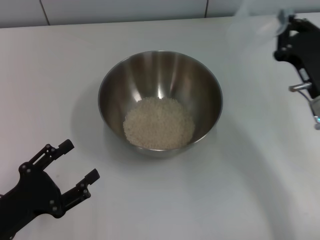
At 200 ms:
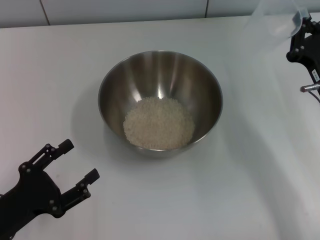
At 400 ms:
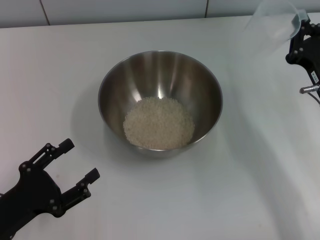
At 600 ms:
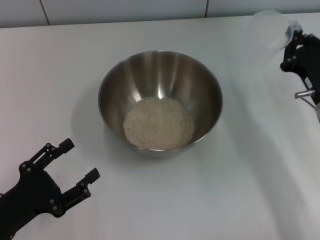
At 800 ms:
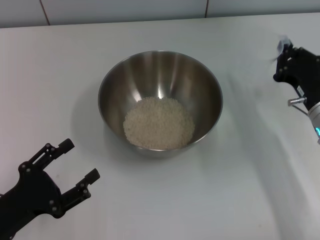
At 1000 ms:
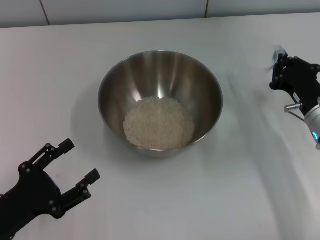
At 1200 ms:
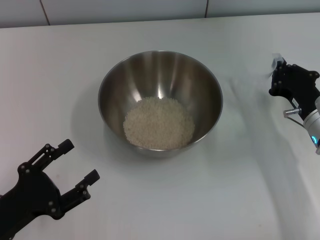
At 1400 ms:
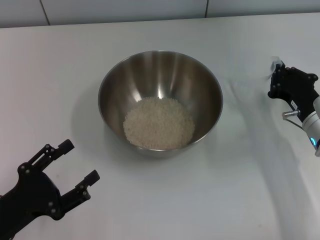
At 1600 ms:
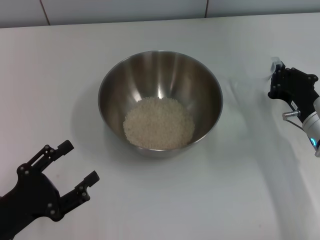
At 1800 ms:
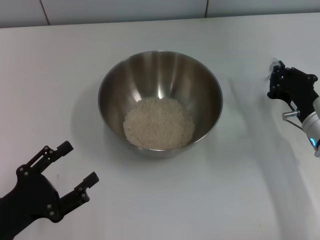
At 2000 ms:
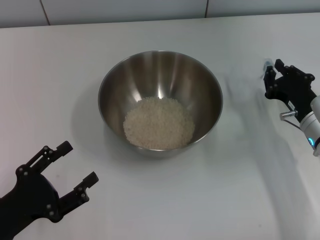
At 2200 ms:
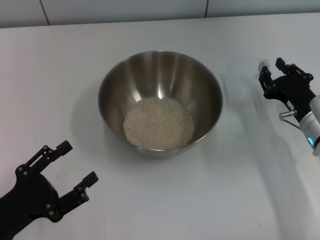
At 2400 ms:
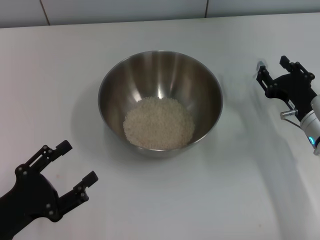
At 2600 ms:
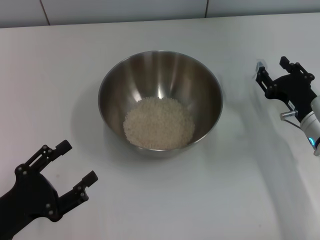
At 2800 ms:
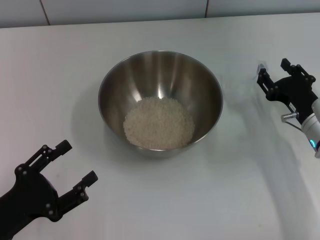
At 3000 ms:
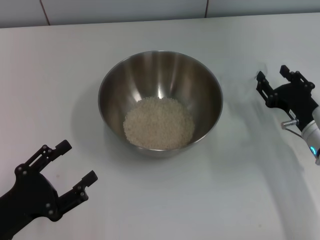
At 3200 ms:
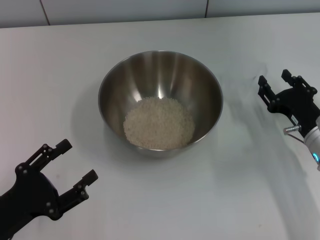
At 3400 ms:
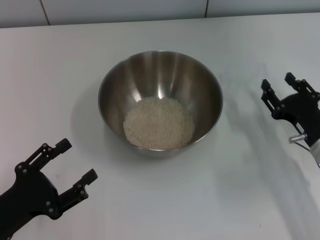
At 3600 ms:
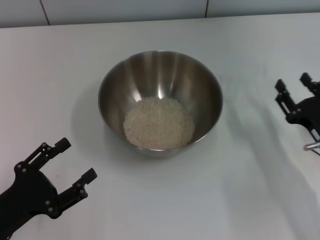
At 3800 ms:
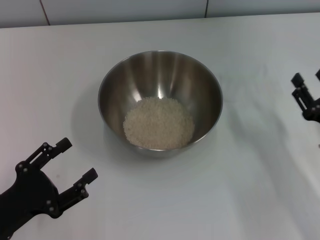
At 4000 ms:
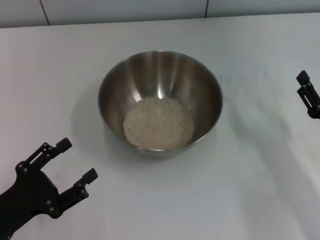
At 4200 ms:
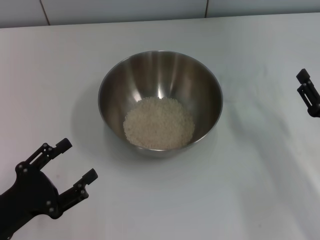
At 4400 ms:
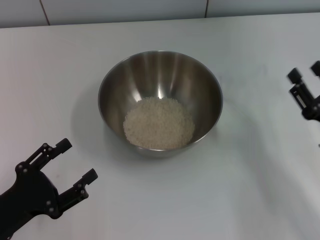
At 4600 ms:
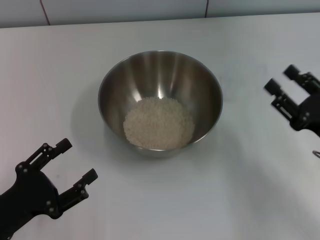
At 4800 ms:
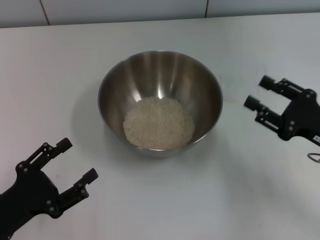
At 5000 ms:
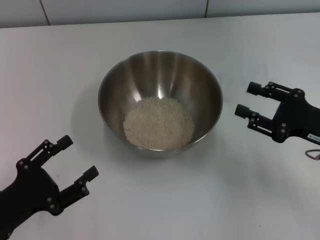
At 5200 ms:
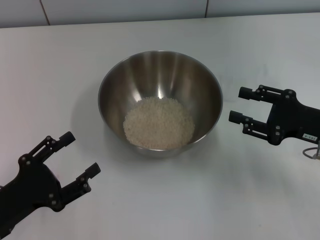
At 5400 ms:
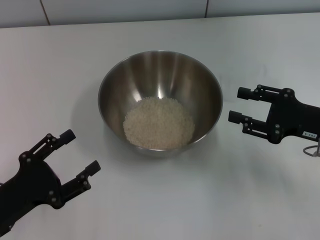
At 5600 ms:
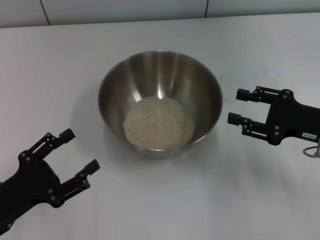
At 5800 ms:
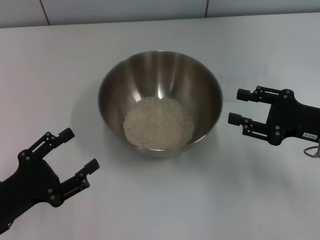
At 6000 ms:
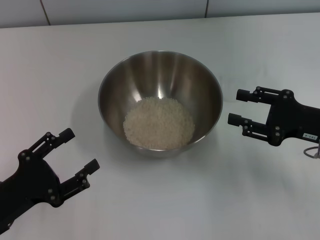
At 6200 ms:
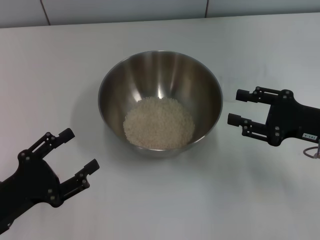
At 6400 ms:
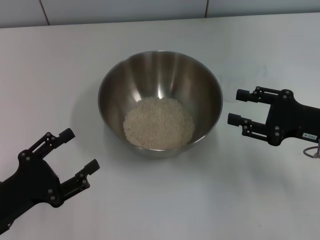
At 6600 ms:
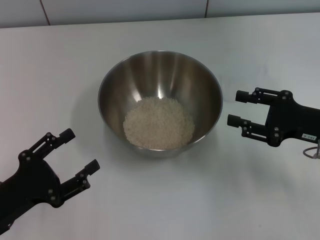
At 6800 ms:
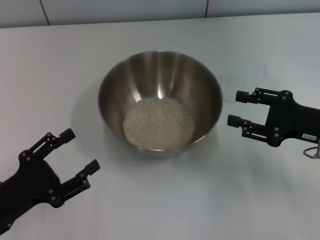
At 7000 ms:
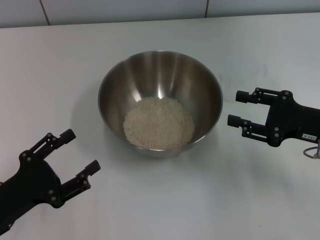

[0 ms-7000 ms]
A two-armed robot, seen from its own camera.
Task of the whole recording: Place the bowl in the middle of the table with one hand and pour the rice from the grain cup into it with the other hand.
Step, 200 ms to 3600 ms: Place the cup on the table with the right gripper.
1400 ms to 2800 ms: The right gripper opens its fingers.
2800 ms to 4200 ms: The right gripper travels backward by roughly 5 cm.
4200 ms to 5600 ms: The right gripper heads upward, covering about 5 cm.
5600 ms to 7000 ms: The two grippers keep their place.

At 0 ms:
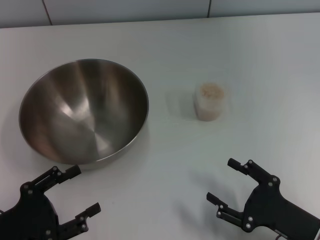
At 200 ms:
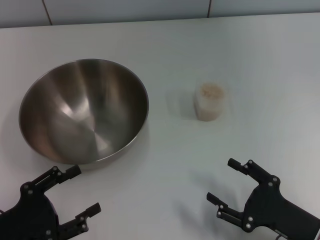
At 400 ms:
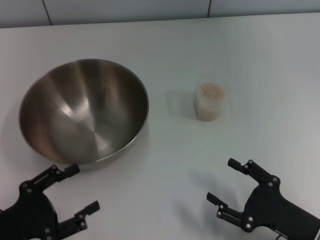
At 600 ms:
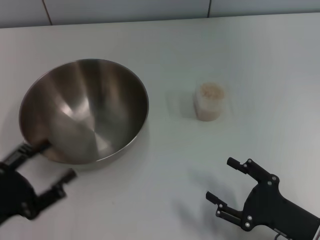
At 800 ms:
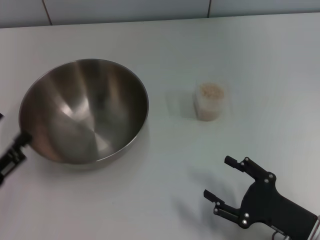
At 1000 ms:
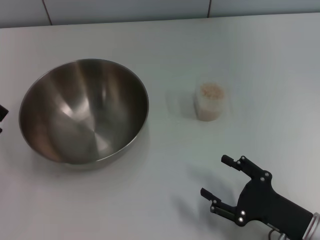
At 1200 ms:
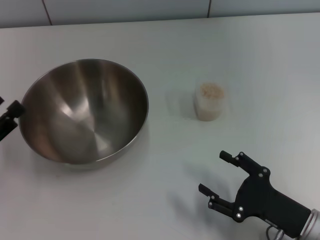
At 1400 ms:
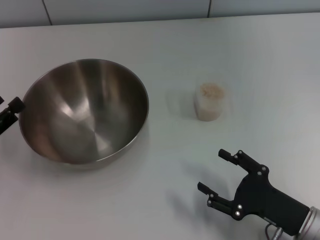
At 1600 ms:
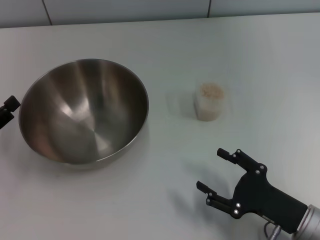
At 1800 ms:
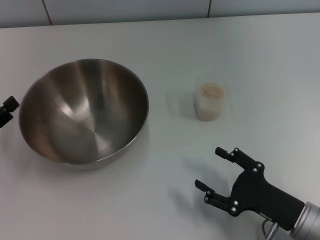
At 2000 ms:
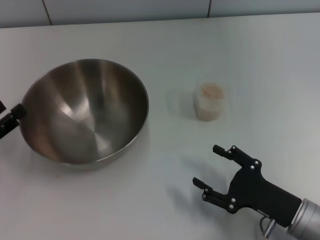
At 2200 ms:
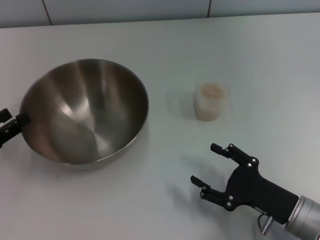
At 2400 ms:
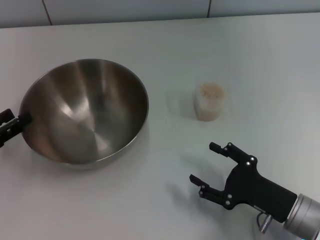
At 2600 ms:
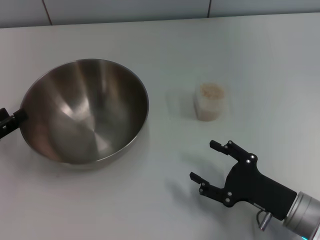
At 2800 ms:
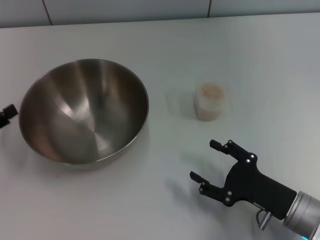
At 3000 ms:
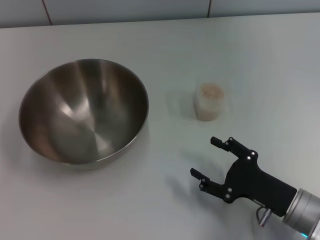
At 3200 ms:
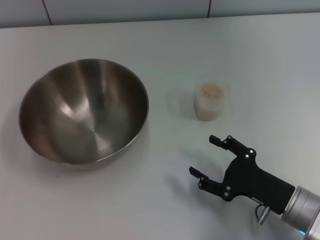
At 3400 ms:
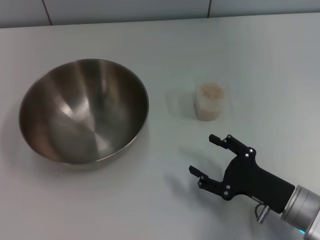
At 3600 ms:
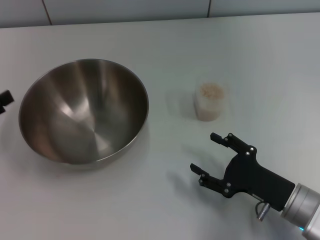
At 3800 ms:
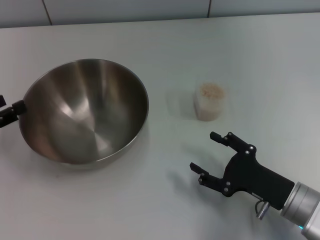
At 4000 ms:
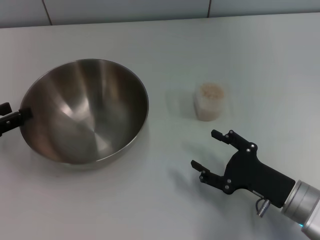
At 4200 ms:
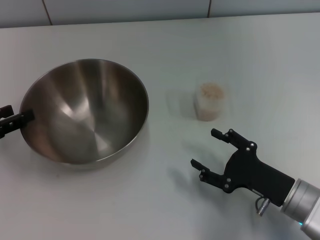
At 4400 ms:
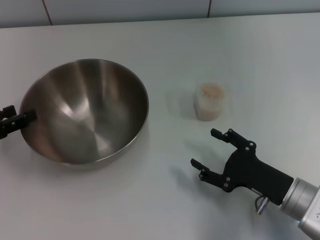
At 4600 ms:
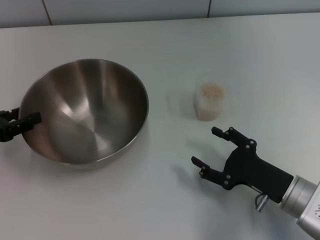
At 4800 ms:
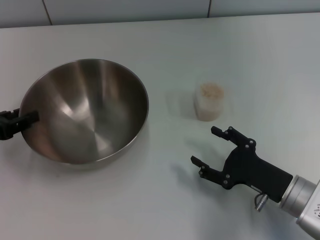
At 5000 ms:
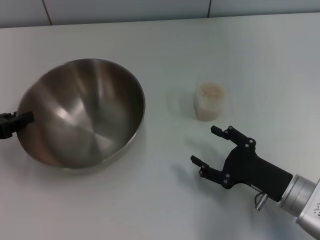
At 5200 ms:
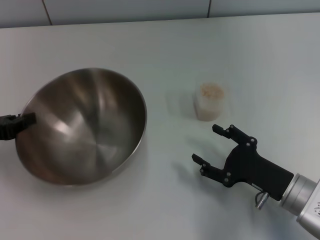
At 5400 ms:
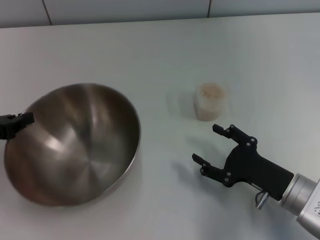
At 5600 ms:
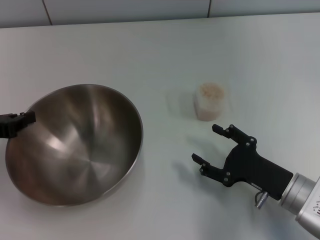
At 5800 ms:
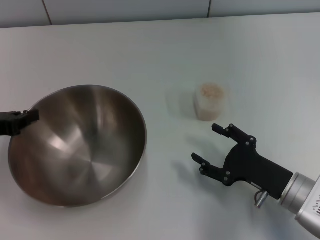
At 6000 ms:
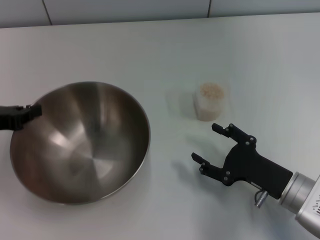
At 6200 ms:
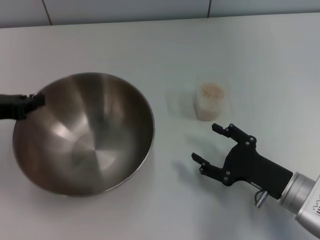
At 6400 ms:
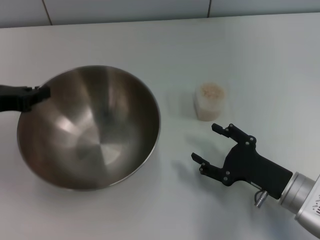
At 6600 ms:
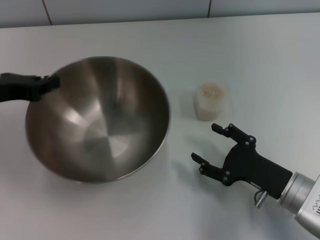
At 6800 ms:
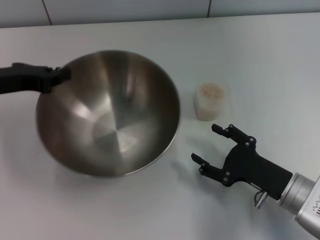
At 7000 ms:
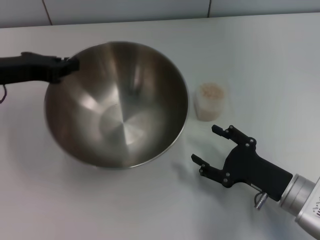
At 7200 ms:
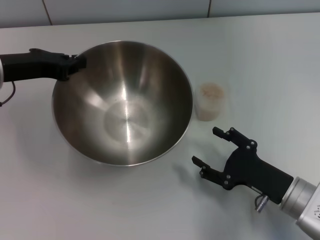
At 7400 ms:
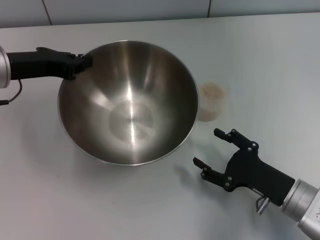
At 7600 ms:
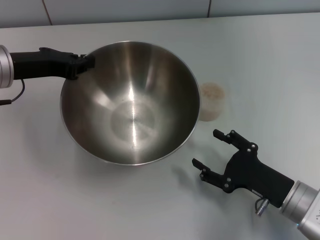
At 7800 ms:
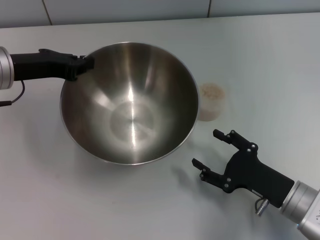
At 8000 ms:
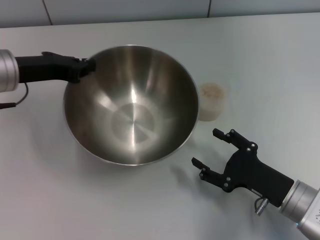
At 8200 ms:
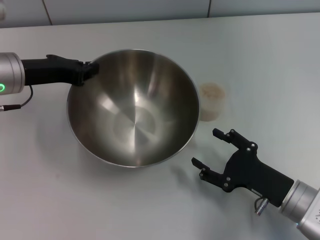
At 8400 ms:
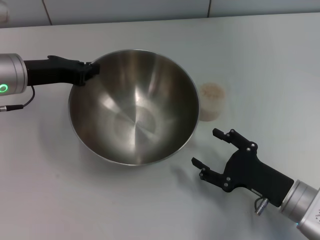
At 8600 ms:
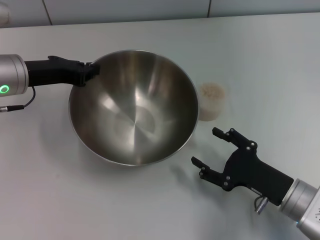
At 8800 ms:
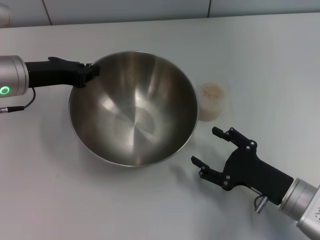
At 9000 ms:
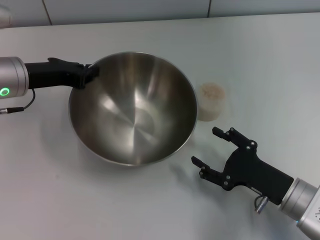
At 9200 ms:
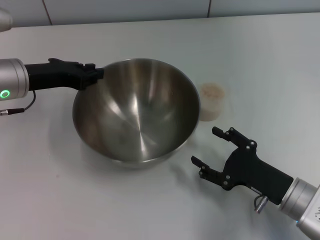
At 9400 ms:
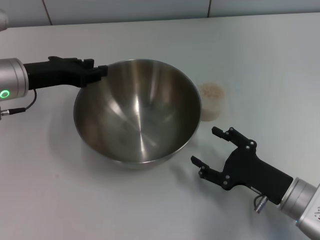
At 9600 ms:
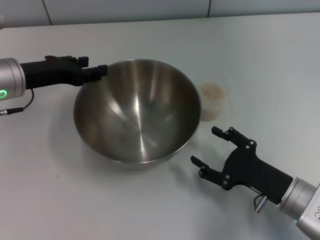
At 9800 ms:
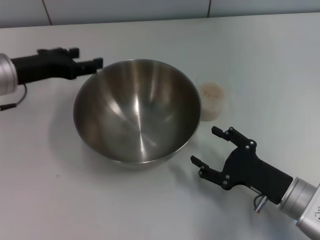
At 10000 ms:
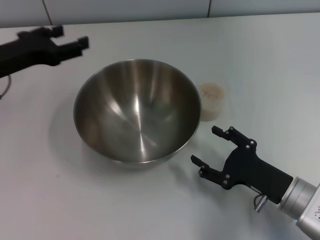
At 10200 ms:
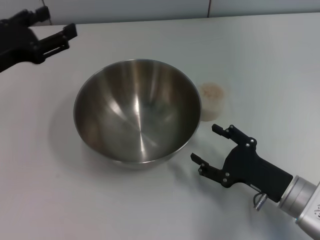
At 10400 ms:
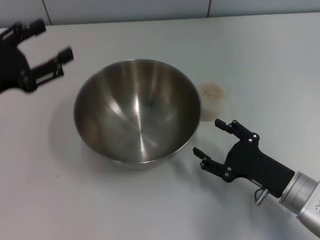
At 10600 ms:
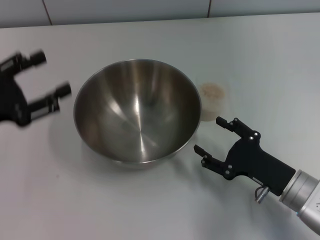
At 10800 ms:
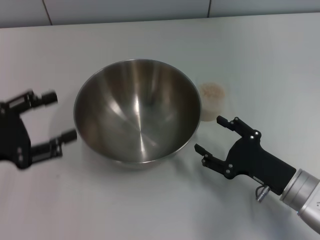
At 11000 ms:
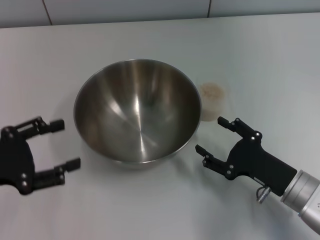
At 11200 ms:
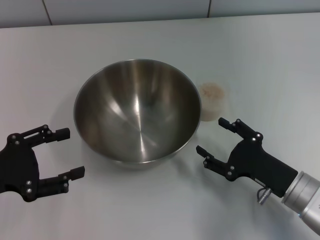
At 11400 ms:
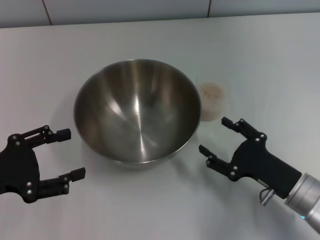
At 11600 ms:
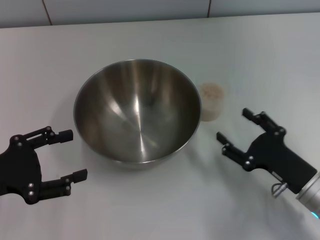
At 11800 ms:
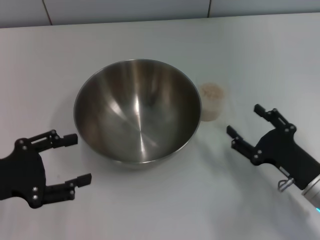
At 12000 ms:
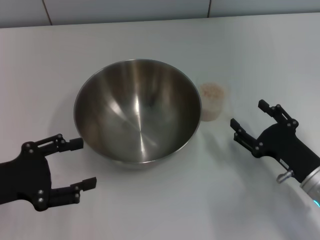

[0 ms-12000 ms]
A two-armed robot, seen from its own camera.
Task of the whole recording: Place the bowl in the middle of the table with one hand and pour the rice from the grain cup into it with the other hand.
Step, 0 ms to 6400 ms: Pick up the bowl with the left gripper.
Step, 6600 ms to 9600 ms: Place the bowl in the center of view with the left gripper.
0 ms to 1600 ms: The left gripper shifts about 10 cm forward and to the left.
1600 ms to 3000 ms: The grippers move only a little.
4400 ms to 6000 ms: The left gripper closes.
6000 ms to 7600 ms: The left gripper heads to the right and forward, covering approximately 10 cm.
7600 ms to 9000 ms: The grippers make only small movements.
9000 ms to 10400 ms: The left gripper heads backward and to the left, covering some 10 cm, and opens.
10400 ms to 12000 ms: The left gripper shifts roughly 5 cm backward.

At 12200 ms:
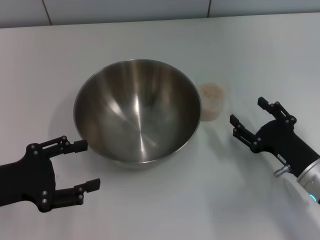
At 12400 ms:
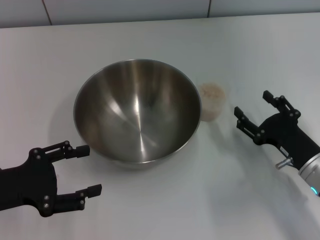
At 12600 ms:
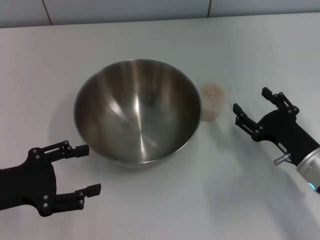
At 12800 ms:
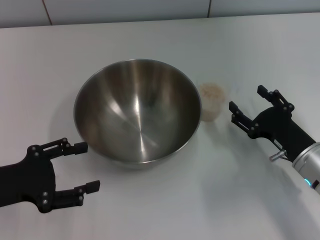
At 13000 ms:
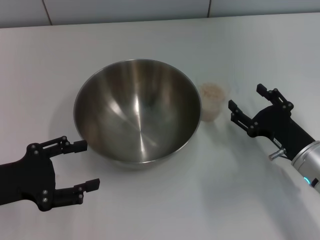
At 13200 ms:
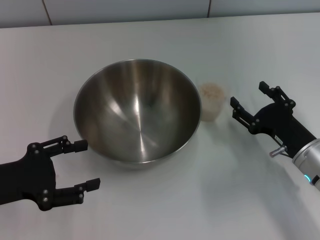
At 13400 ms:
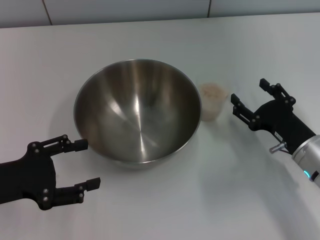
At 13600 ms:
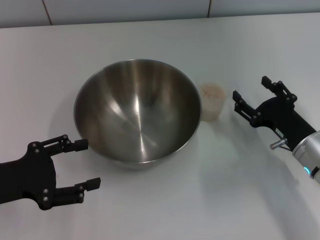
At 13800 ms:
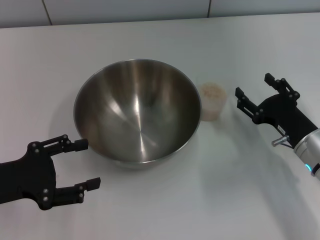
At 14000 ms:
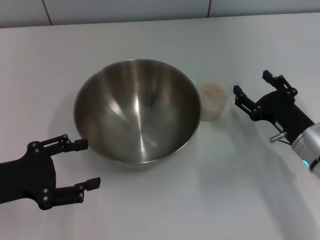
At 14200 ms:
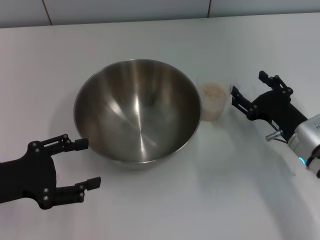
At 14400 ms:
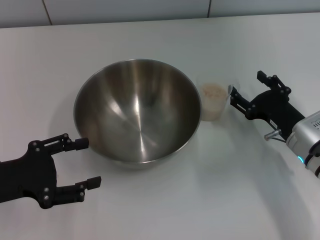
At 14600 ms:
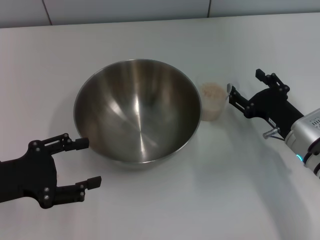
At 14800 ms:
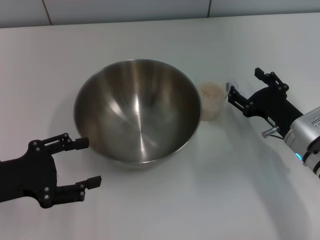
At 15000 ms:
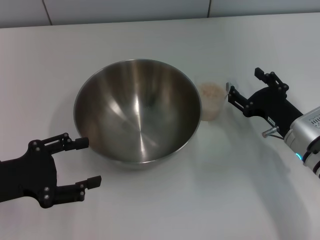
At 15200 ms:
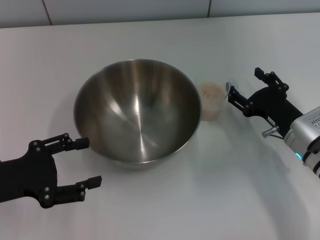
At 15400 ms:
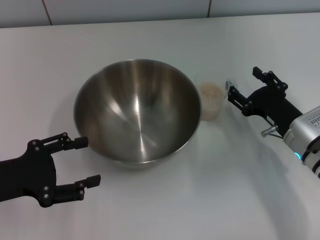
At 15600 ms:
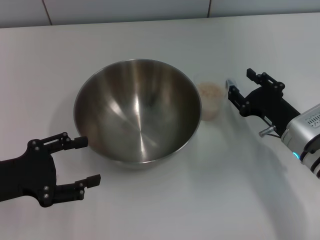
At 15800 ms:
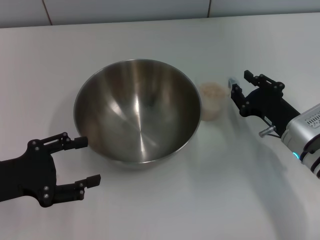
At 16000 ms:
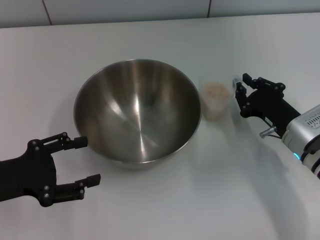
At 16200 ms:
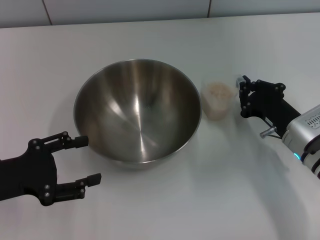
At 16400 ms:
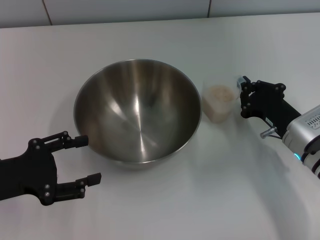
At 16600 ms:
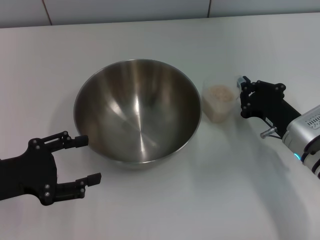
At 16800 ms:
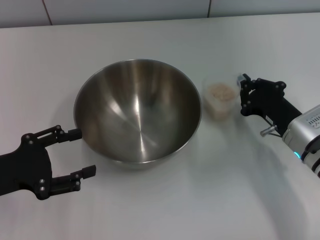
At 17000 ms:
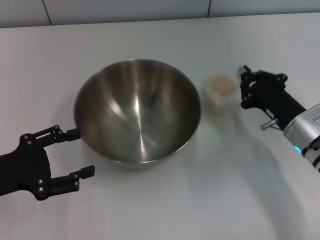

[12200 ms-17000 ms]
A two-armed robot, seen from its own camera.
Task of the whole recording: Place the bowl in the middle of the table with one hand and pour the rice from the grain cup into it with the other hand.
12200 ms to 13800 ms: The grippers move only a little.
13800 ms to 15400 ms: The grippers make only small movements.
15400 ms to 17000 ms: The right gripper closes its fingers.